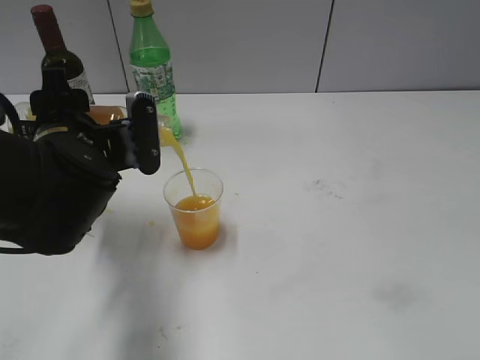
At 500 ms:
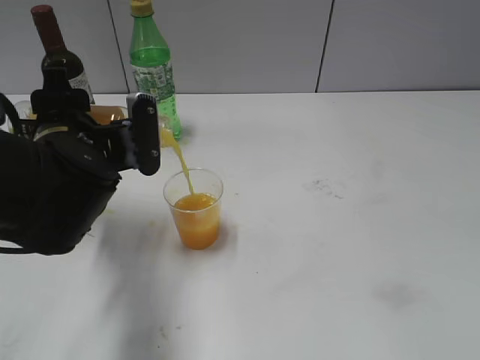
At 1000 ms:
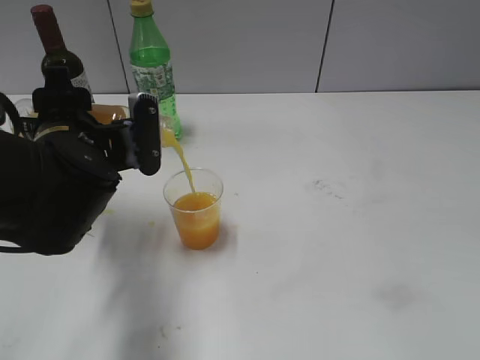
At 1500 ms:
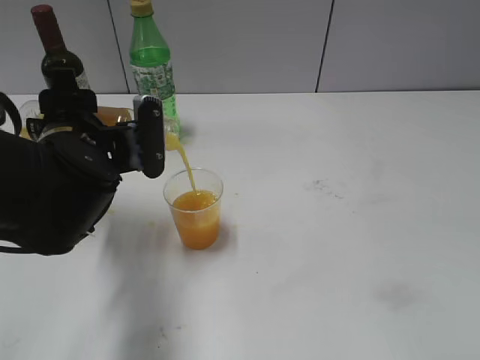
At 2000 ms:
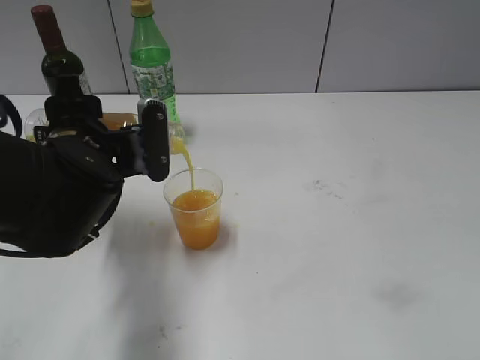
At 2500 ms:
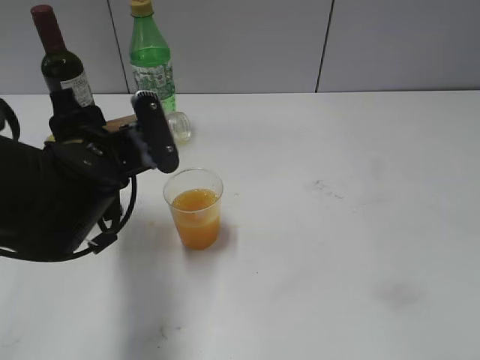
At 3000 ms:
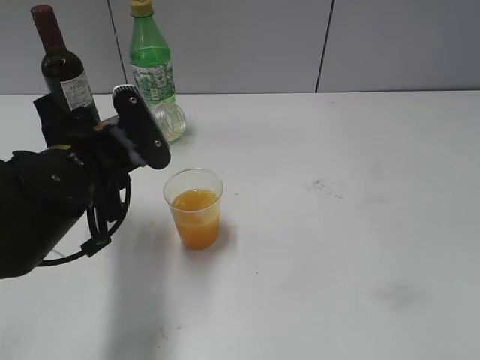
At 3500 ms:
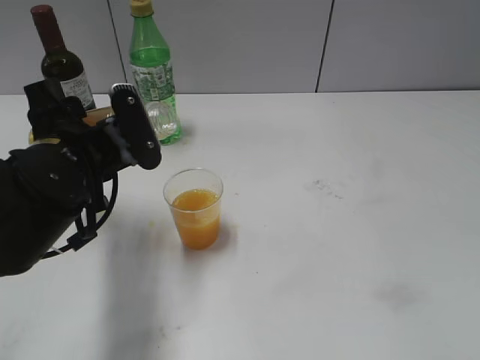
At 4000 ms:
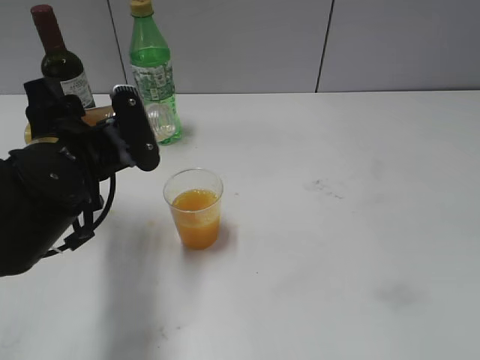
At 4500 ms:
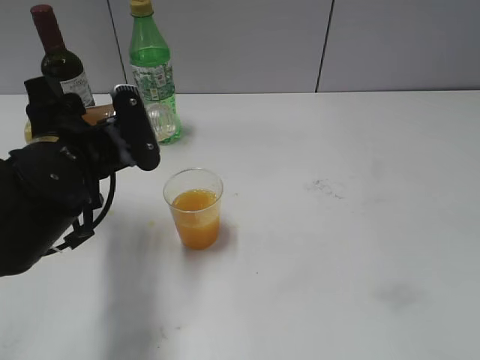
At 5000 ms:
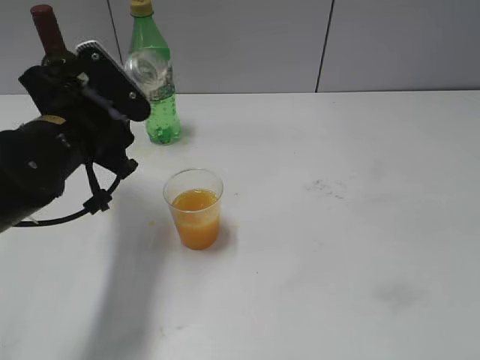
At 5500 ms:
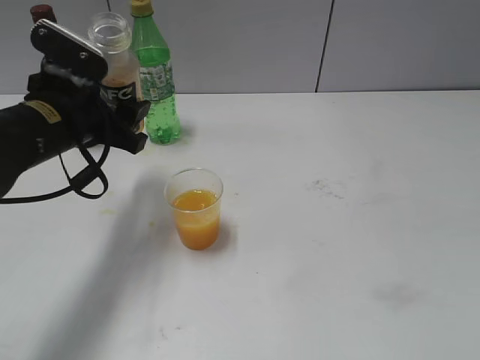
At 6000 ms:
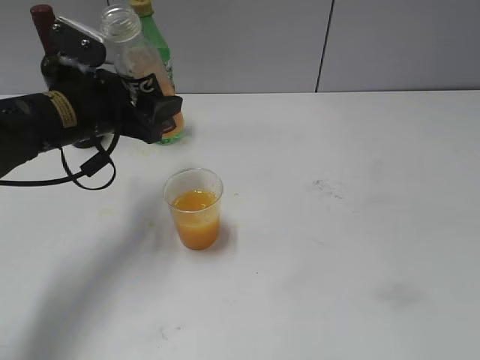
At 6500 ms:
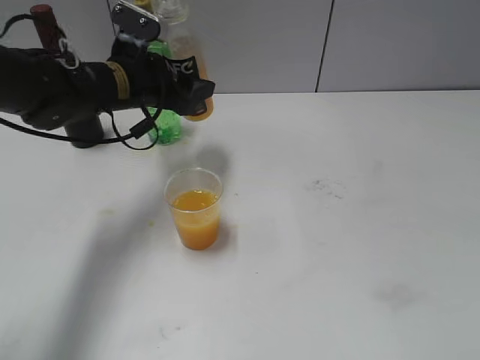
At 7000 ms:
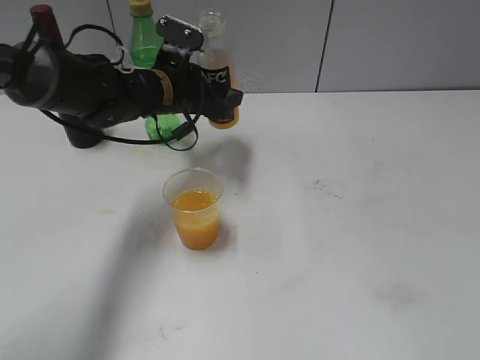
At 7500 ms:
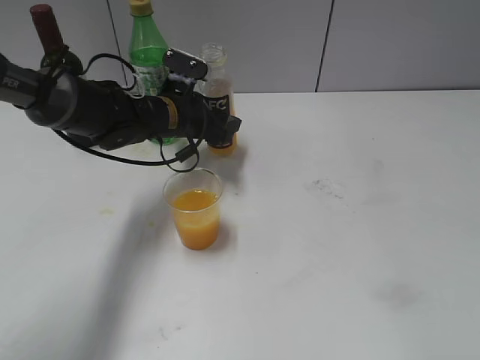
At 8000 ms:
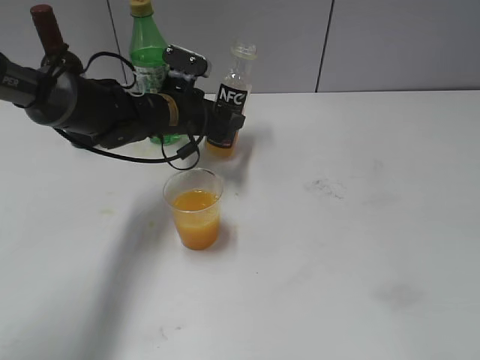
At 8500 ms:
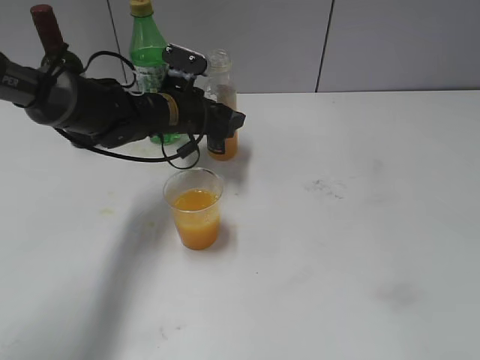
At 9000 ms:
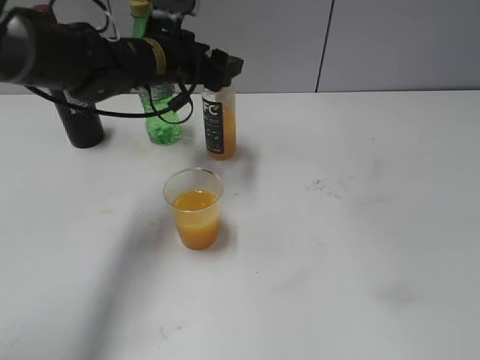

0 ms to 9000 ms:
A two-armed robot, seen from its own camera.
Step, 0 ms to 2500 ms: Pour the orange juice from bottle to cup with left gripper.
Step, 3000 ms to 8500 ms: Place the orange juice bottle on the table with left gripper.
0 ms to 2000 ms: Both grippers stay about where they are.
4500 ms to 7000 ms: The left gripper heads forward and to the right, covering about 20 cm.
7000 ms to 9000 ms: The left gripper opens up.

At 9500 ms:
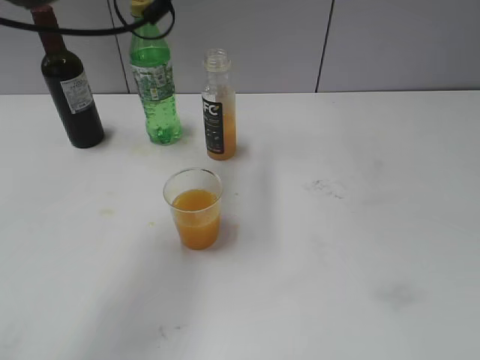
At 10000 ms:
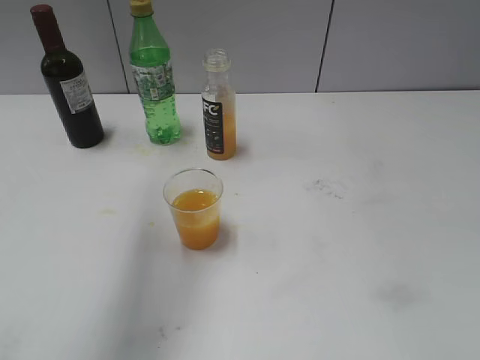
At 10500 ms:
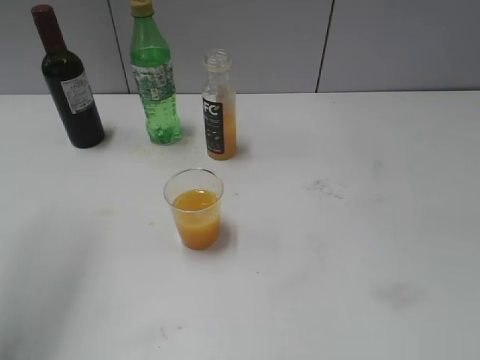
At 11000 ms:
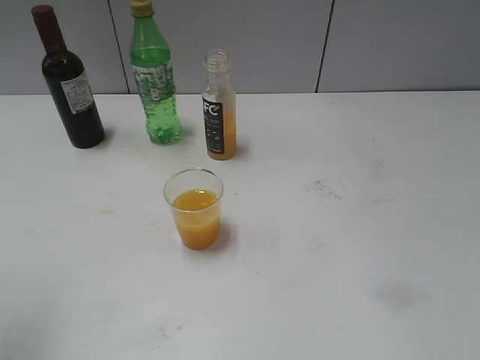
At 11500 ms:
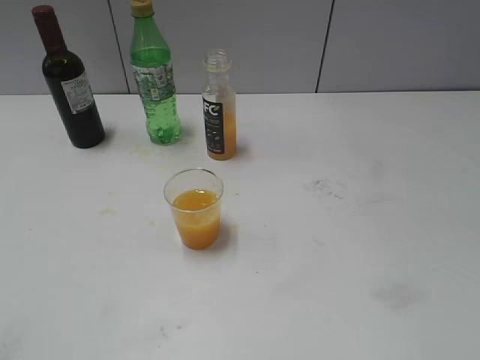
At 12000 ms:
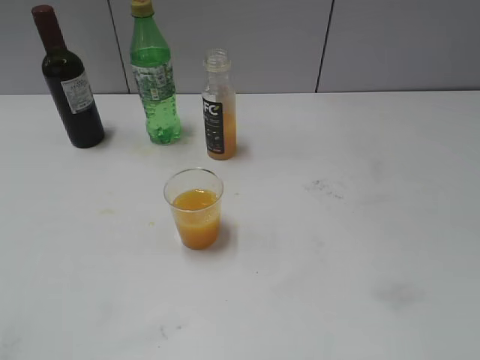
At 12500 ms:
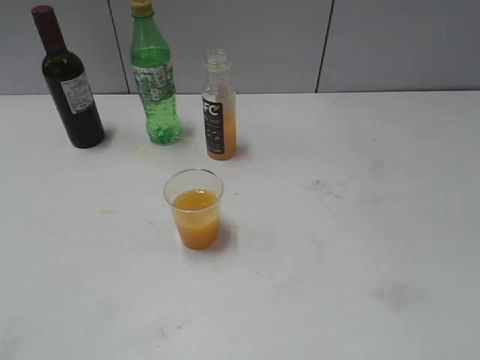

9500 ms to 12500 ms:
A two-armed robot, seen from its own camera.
9500 ms to 11000 ms: The left gripper shifts some 30 cm backward, to the left and upward.

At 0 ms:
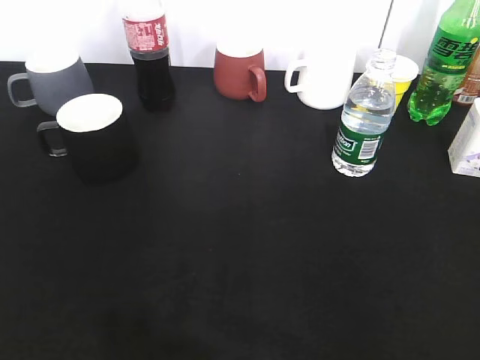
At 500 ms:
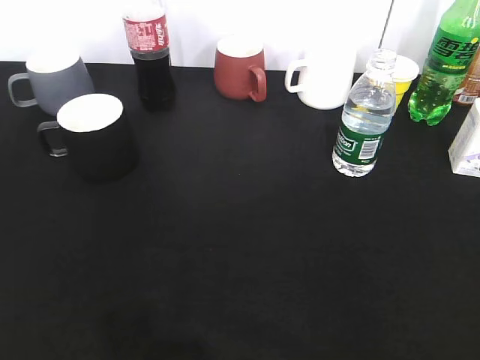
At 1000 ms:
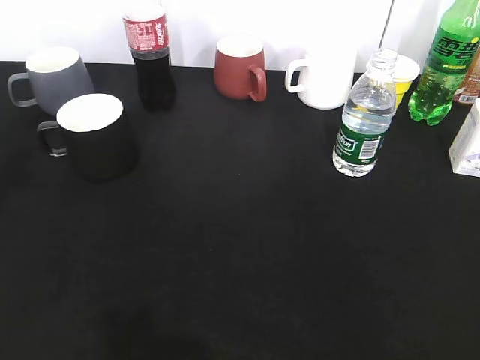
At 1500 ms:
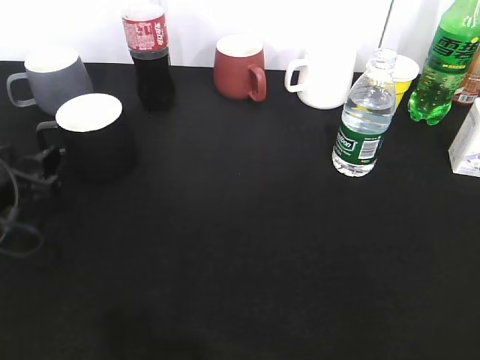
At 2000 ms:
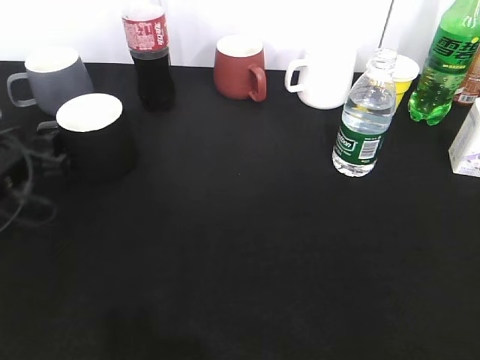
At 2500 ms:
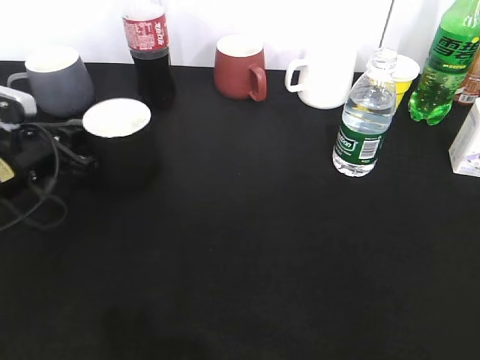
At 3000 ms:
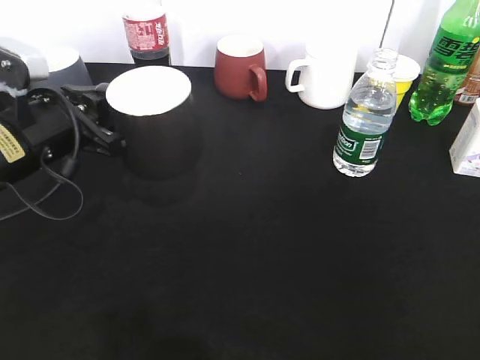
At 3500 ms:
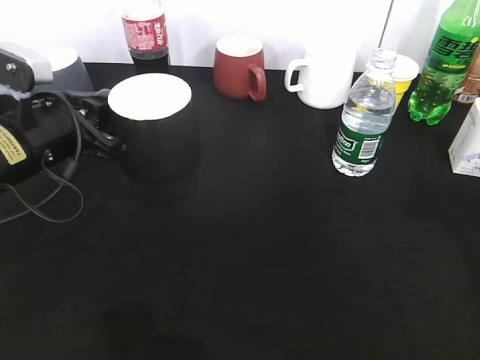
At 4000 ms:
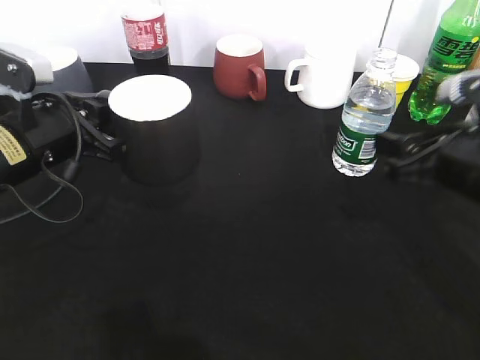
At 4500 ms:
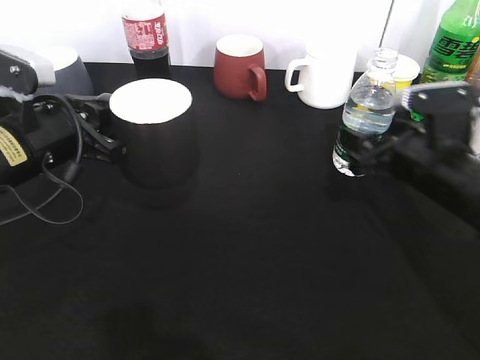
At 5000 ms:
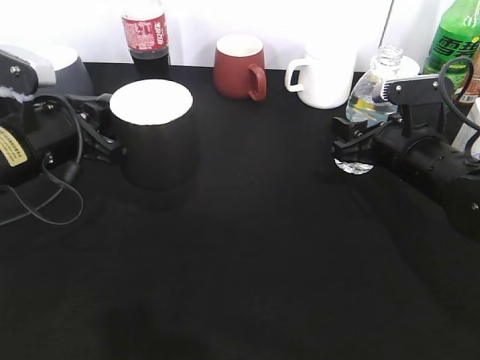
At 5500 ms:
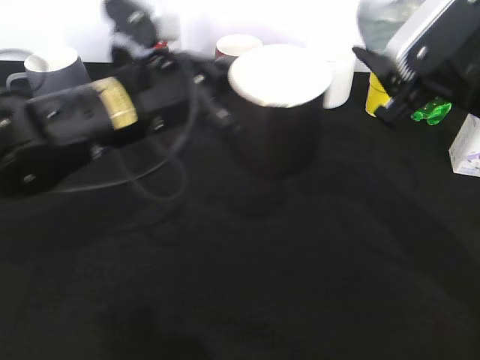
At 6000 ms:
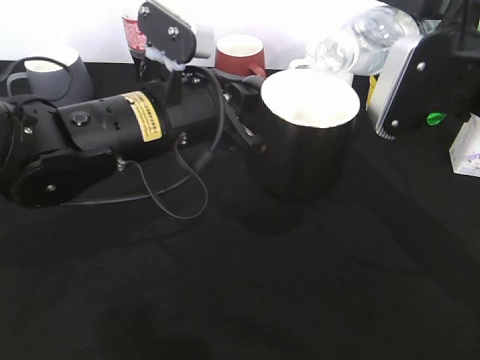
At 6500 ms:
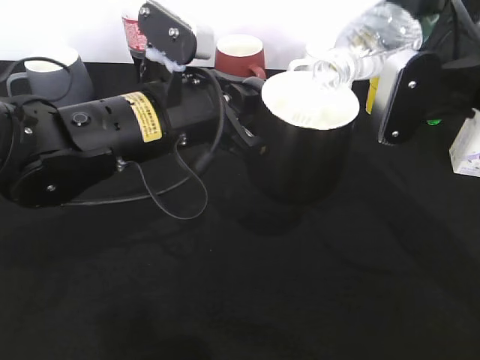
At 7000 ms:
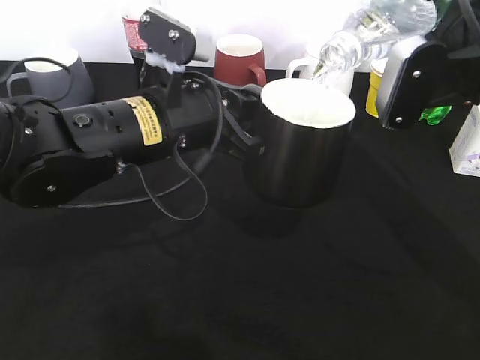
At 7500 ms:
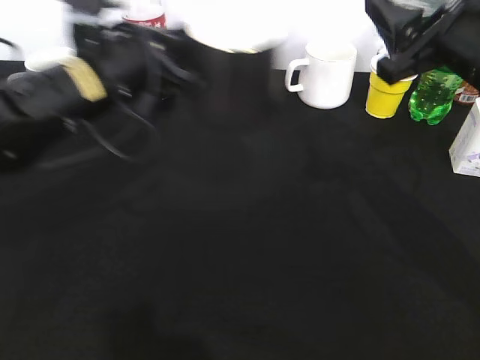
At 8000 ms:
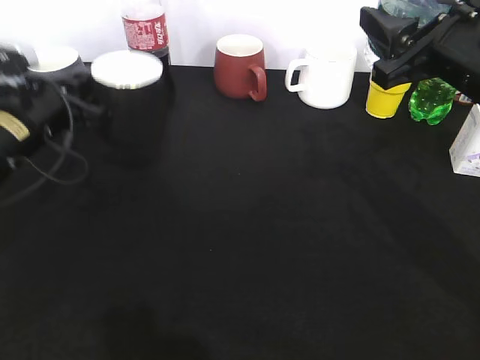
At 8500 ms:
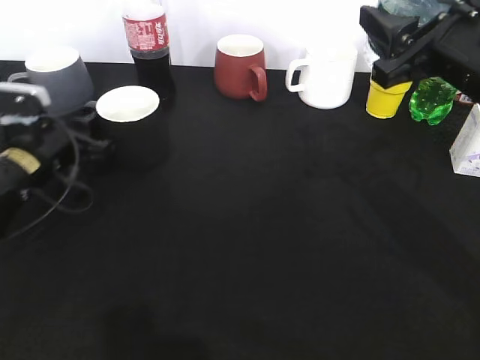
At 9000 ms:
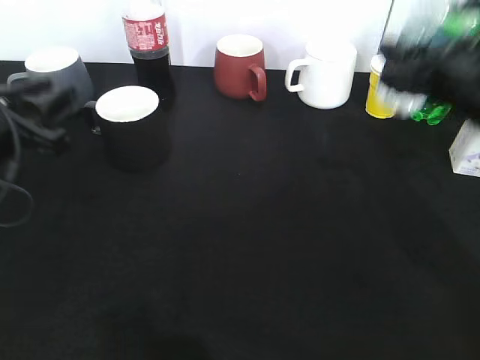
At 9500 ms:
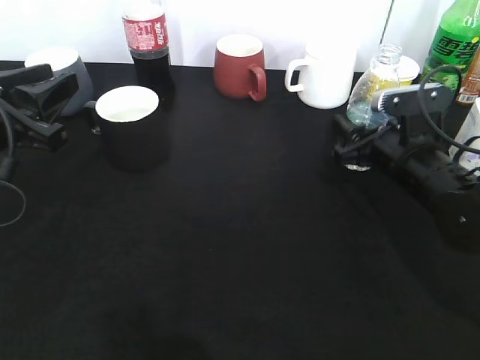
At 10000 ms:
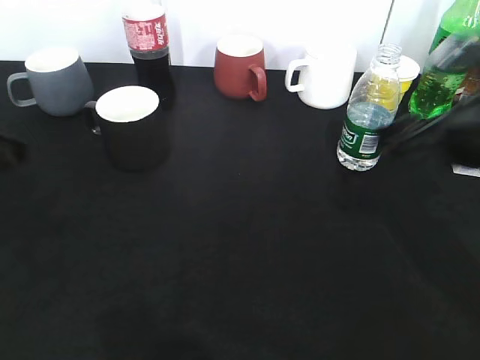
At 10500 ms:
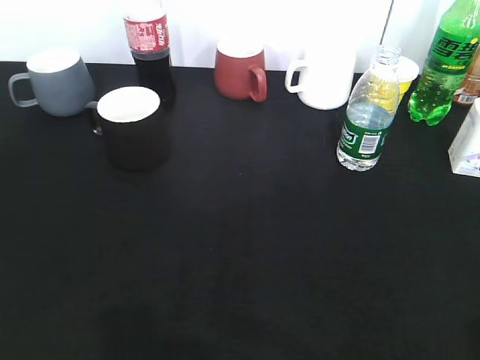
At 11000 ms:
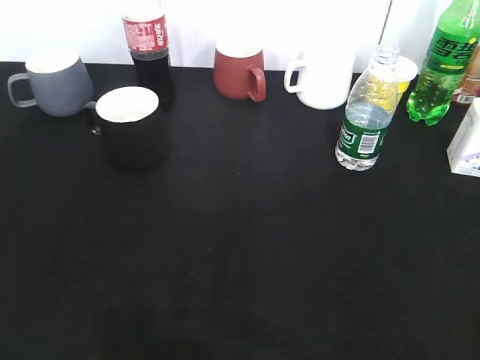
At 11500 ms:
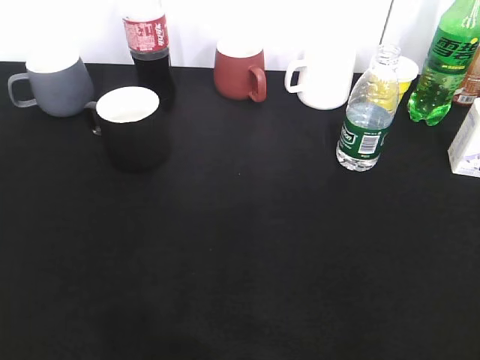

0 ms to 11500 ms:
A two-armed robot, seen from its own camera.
Step, 2500 ms to 3000 ms: Lift the black cup with left gripper.
Step, 3500 ms to 5000 ms: Grasp the bottle with water with right gripper.
Step, 5500 ms to 7000 ms: Pour the water from bottle to cup with right gripper.
Step, 7500 ms to 8000 ms: Place the black cup on the table with left gripper.
Step, 8500 ms to 9500 ms: Place the water bottle on the table with right gripper.
0 ms to 2000 ms: The left gripper goes some 35 cm forward and downward, and opens its fingers.
2000 ms to 4000 ms: The right gripper shifts approximately 25 cm forward and downward. The left gripper travels to the right and upward by about 10 cm, and closes.
4000 ms to 6000 ms: The right gripper moves upward, some 10 cm. Meanwhile the left gripper is displaced to the right by roughly 15 cm.
6000 ms to 7500 ms: The left gripper shifts roughly 5 cm to the left.
7500 ms to 9500 ms: The right gripper heads downward, covering roughly 15 cm; the left gripper is displaced to the left and backward by some 15 cm, reaches roughly 10 cm downward, then returns, and opens its fingers.
9500 ms to 11500 ms: The right gripper moves backward and upward, roughly 35 cm, and closes; the left gripper moves backward, about 25 cm.
